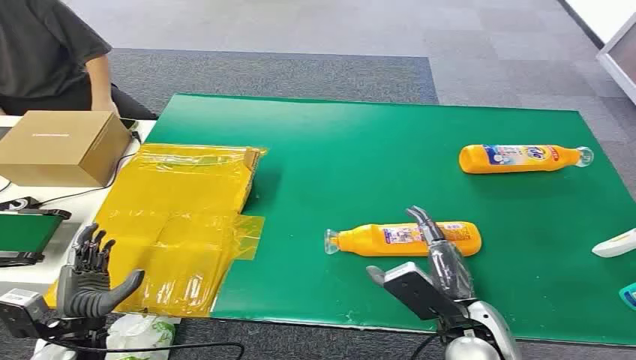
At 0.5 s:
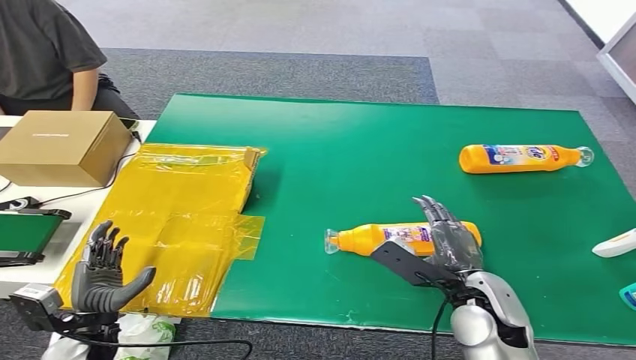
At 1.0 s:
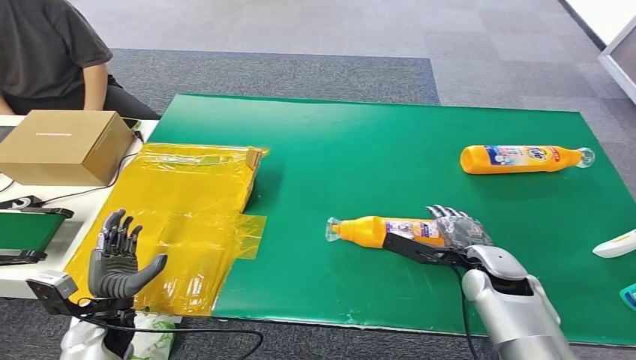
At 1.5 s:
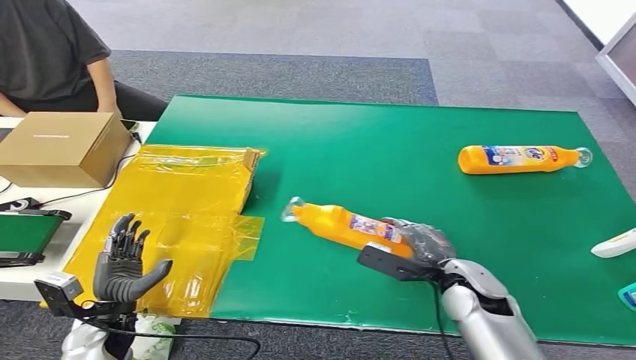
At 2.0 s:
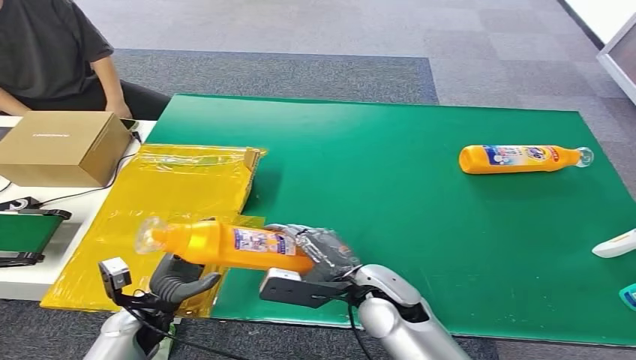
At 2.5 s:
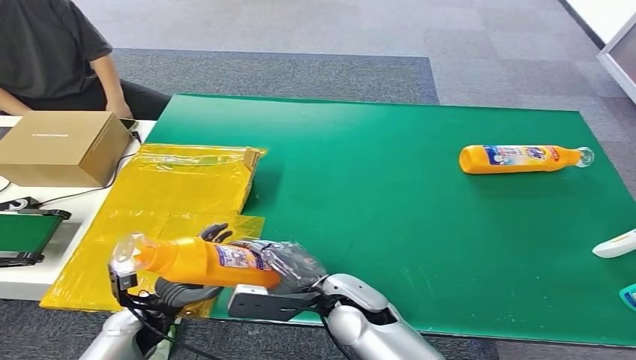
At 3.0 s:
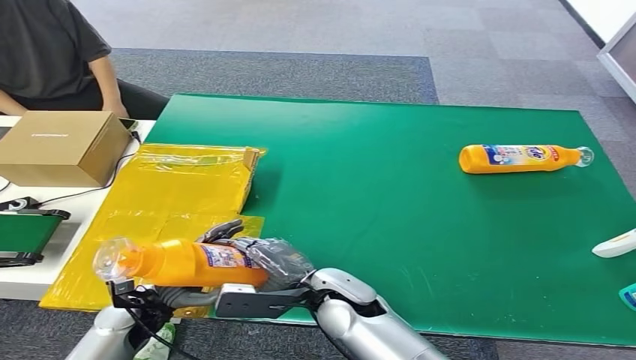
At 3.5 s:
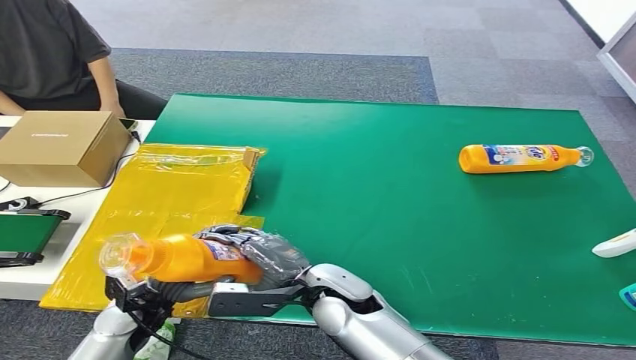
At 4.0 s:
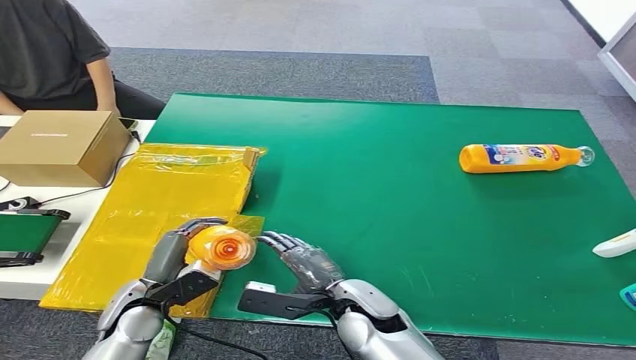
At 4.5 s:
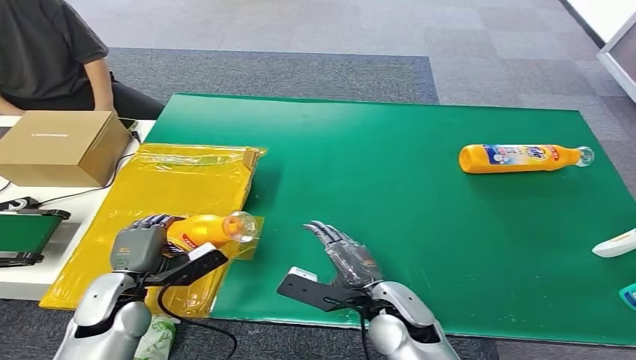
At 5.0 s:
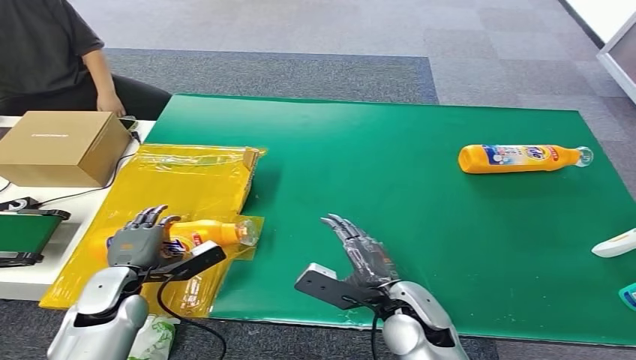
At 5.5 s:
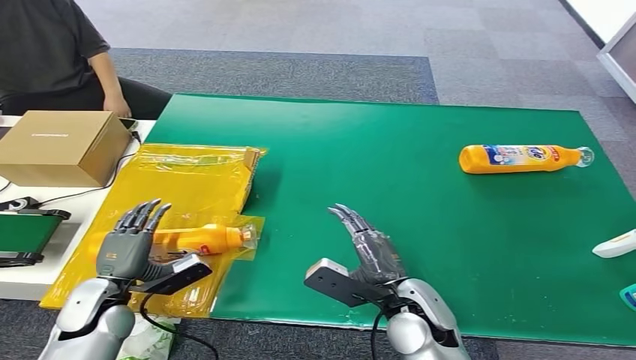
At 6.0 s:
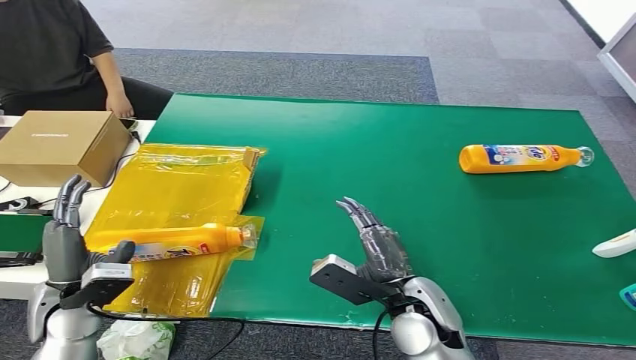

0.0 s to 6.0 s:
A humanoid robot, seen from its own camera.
Step, 0.0 to 1.5 s: Pick up the bottle from the table.
Step, 2.0 to 6.0 s: Turn the bottle to the front side.
2.0 to 4.0 s: The left hand moves upward, approximately 5 cm. The right hand moves about 5 cm.
4.0 to 6.0 s: The right hand goes about 5 cm to the right. The left hand shifts some 10 cm to the left and upward.
